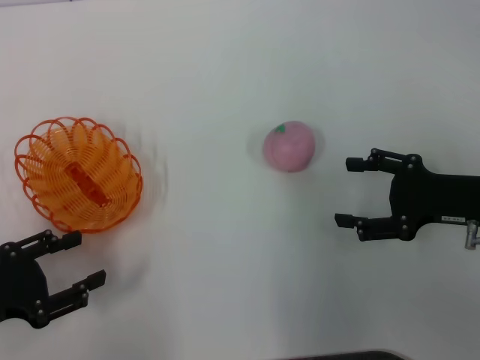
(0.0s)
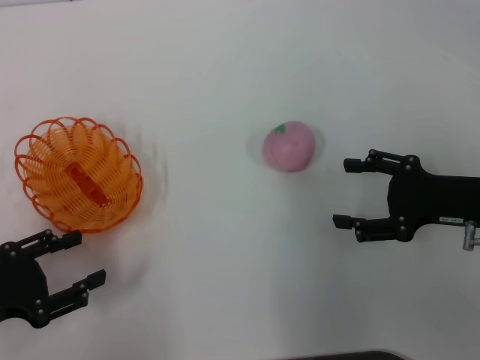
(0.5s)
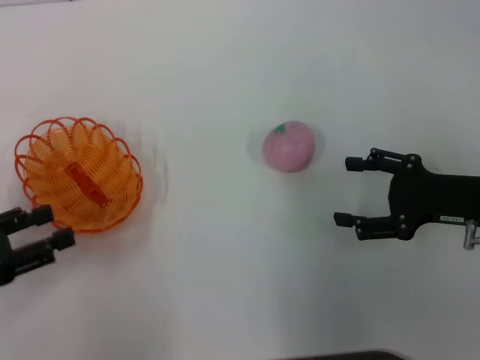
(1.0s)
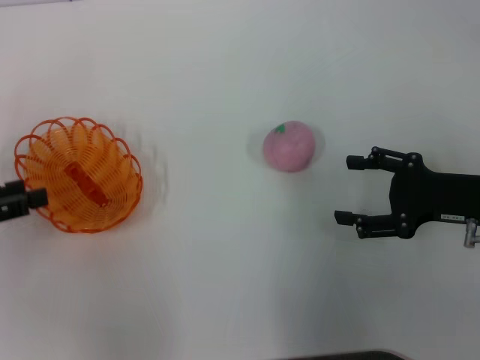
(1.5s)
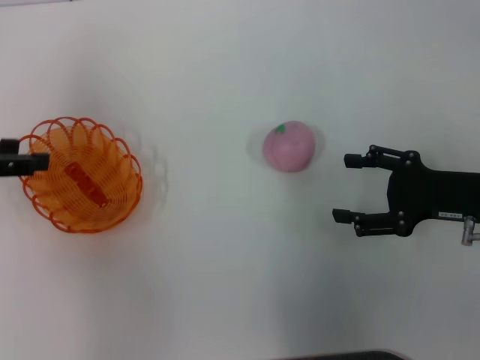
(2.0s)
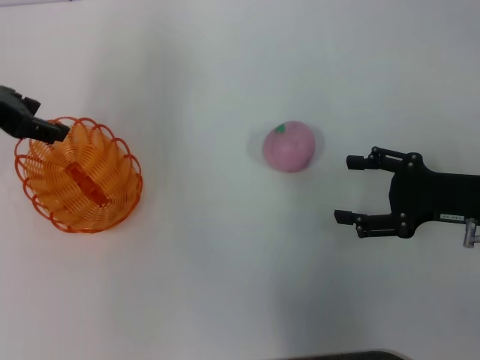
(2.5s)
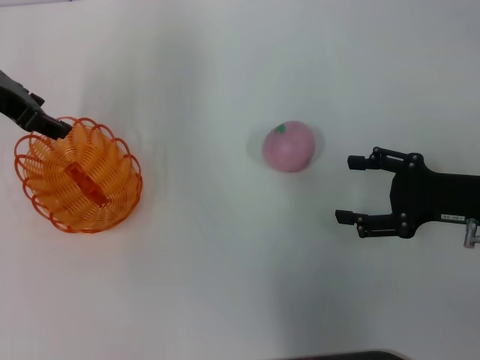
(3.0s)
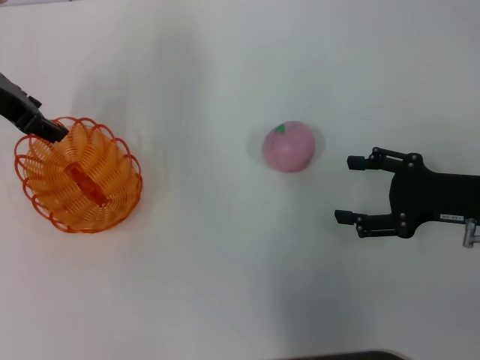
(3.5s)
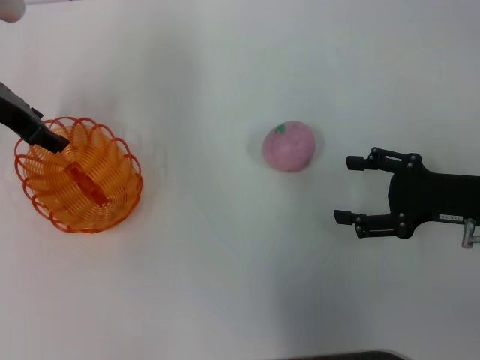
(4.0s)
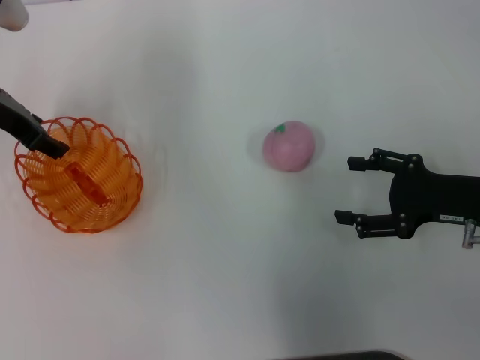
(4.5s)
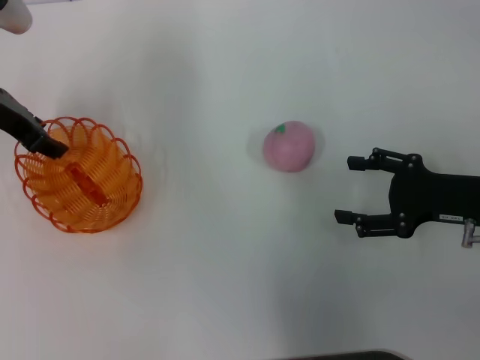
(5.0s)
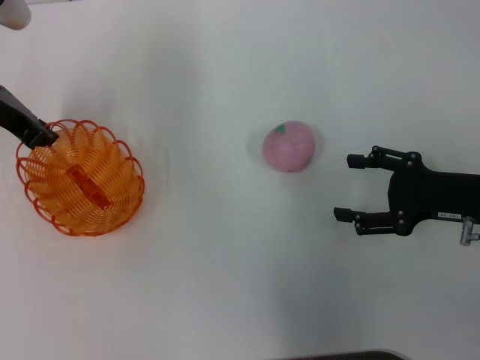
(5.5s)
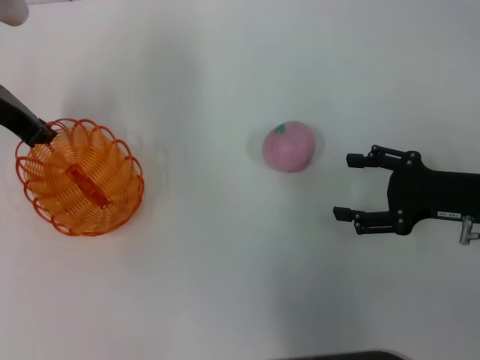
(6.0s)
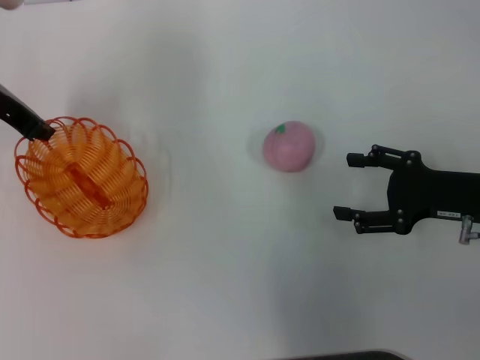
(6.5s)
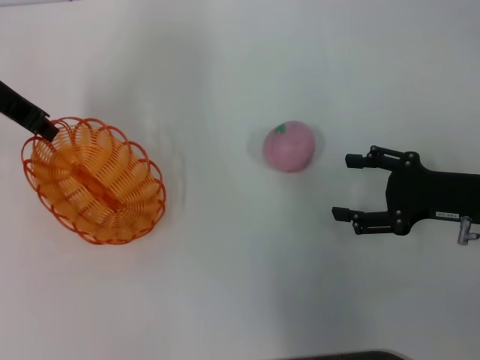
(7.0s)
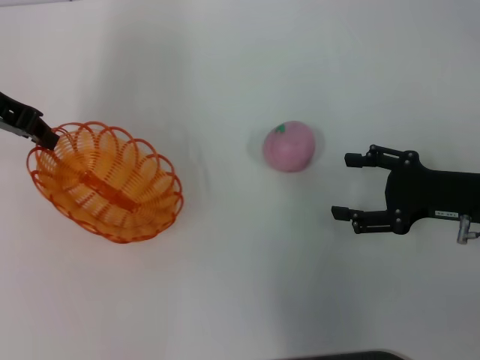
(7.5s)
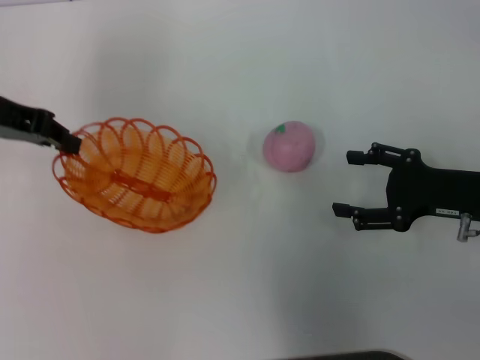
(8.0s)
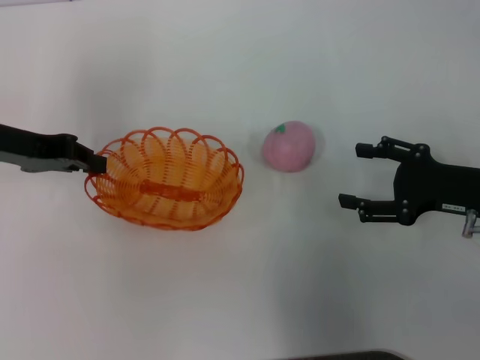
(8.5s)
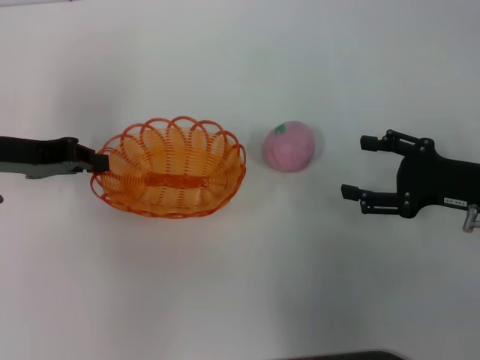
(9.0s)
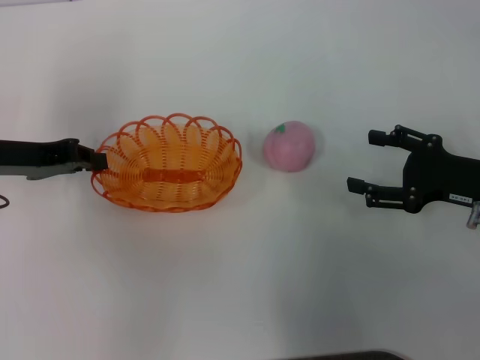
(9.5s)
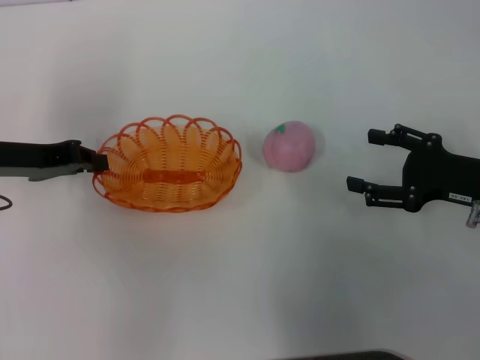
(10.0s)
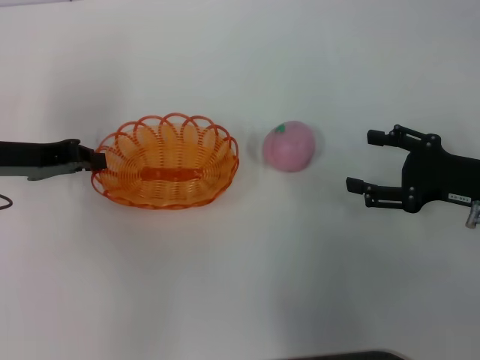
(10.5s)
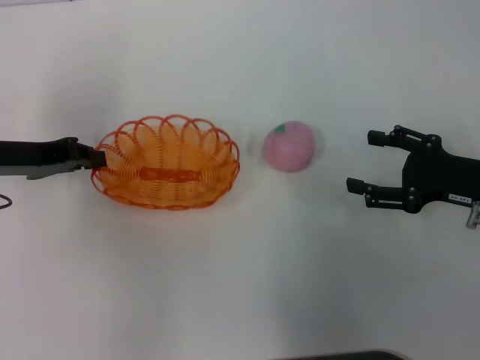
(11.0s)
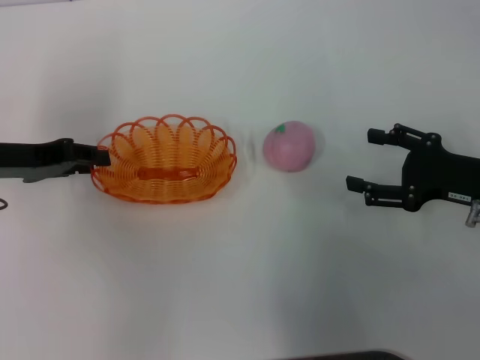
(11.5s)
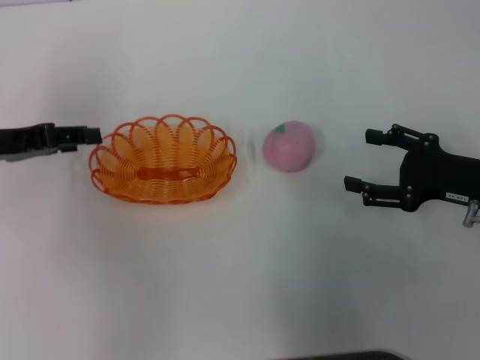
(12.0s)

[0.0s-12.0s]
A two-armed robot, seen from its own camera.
Step, 0.0s to 6.5s: Pick up the basket with the left gripper.
Step, 7.0s to 12.0s: Place the basket in the center of view with the left gripper.
0.0s to 2.0s: The left gripper heads forward and upward, covering roughly 15 cm.
2.0s to 4.0s: The left gripper shifts some 15 cm forward and to the right.
4.0s to 6.0s: The left gripper closes.
8.0s to 10.0s: The left gripper moves downward and backward, some 10 cm.
10.0s to 12.0s: The left gripper opens up.

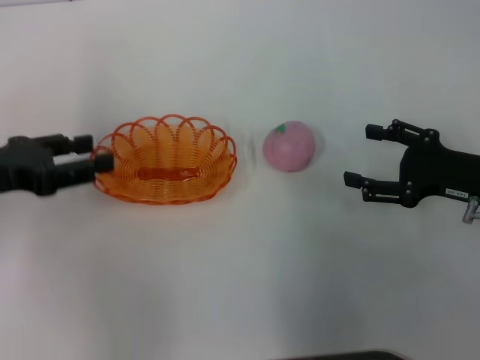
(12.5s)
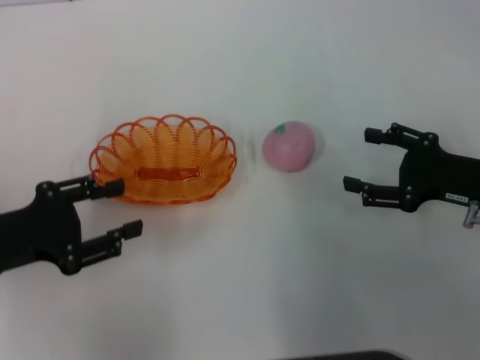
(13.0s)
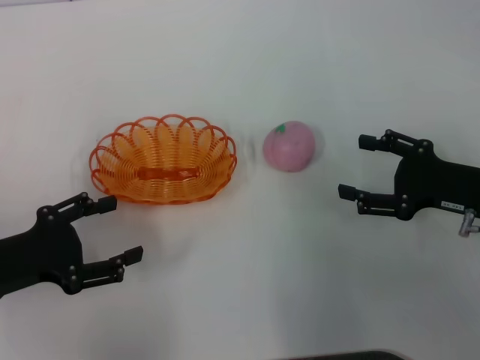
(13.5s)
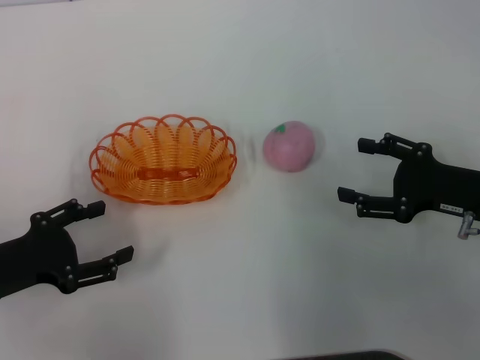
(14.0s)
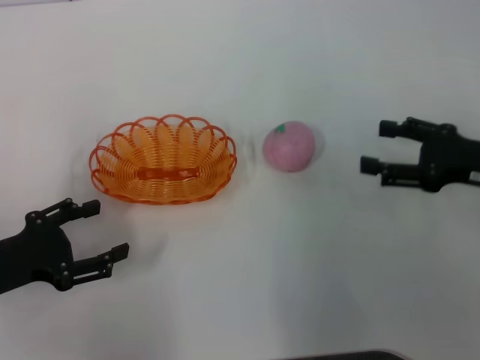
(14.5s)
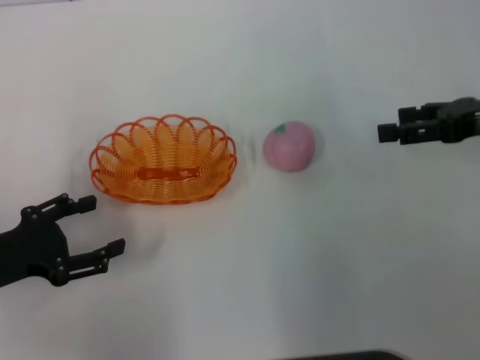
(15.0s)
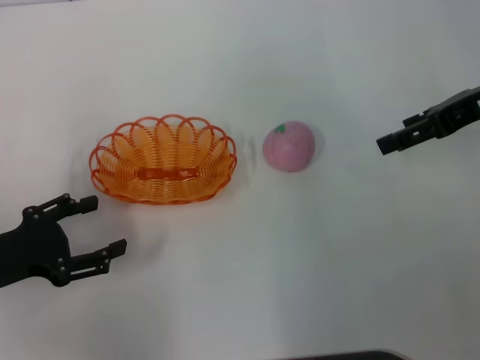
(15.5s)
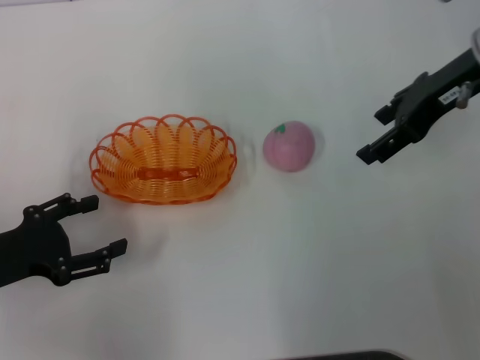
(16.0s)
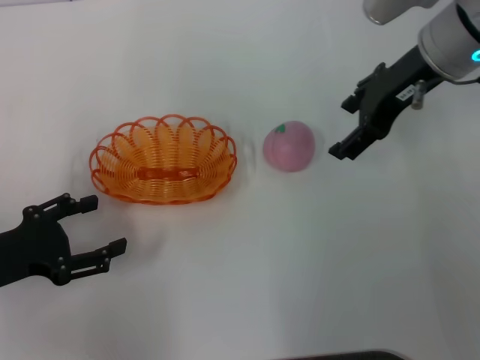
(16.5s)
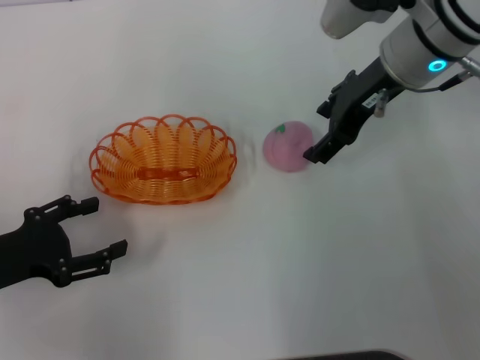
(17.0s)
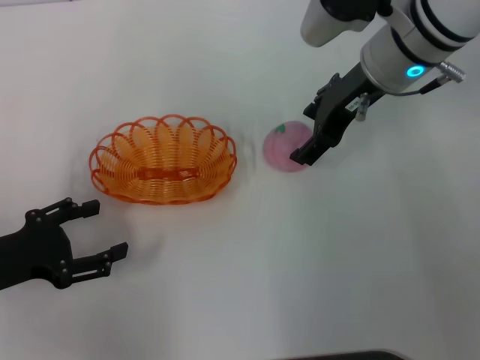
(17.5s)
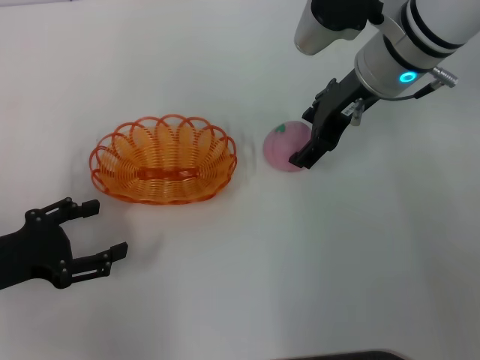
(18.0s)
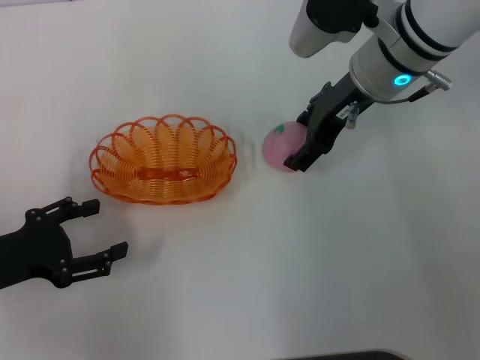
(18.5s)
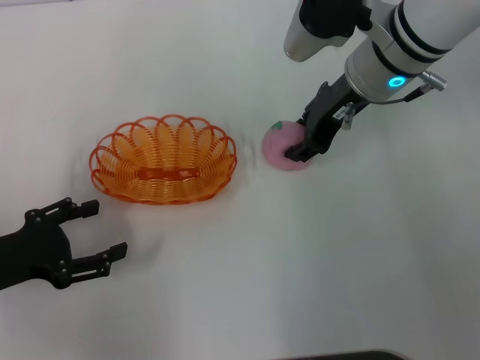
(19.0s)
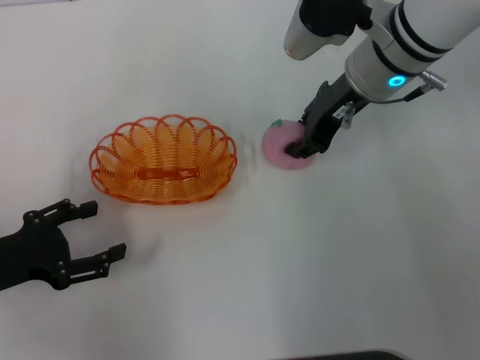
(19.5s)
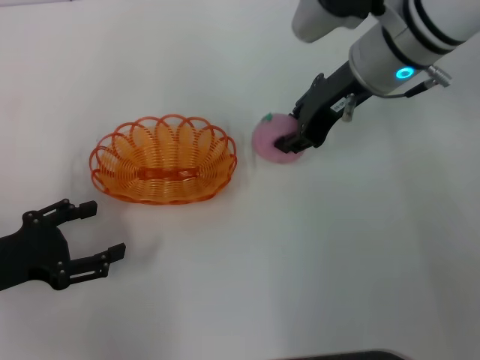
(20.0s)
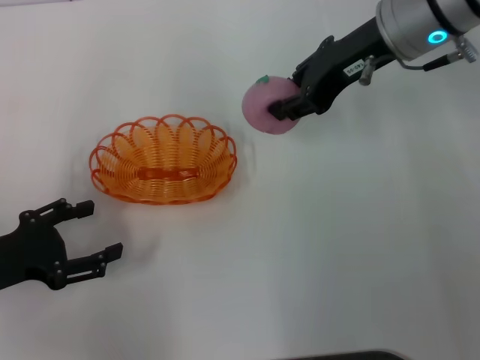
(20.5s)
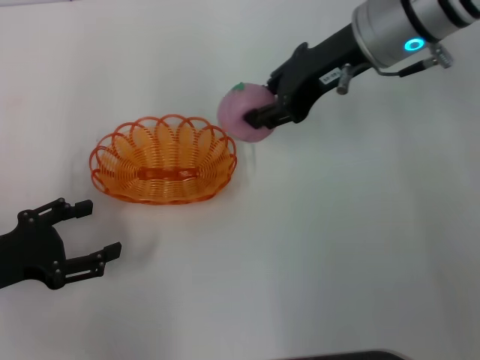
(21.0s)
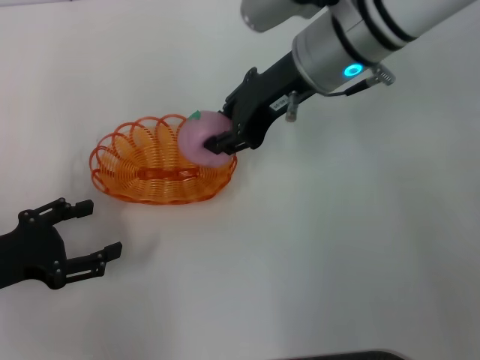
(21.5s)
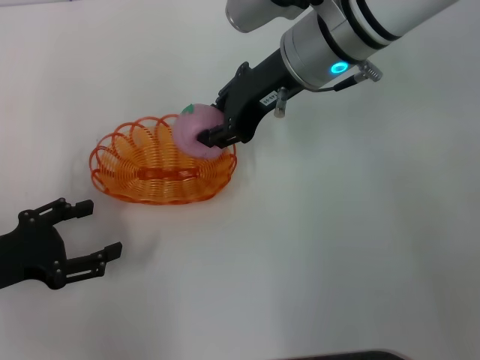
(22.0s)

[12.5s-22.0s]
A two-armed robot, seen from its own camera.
Step, 12.5s to 20.0s: Pick up the peach with the right gripper.
12.5s to 14.5s: The left gripper shifts roughly 10 cm downward and backward.
14.5s to 16.5s: The right gripper goes approximately 20 cm to the left, forward and upward.
16.5s to 18.0s: The right gripper changes place by approximately 5 cm.
18.0s to 20.0s: The right gripper closes.
20.0s to 22.0s: The right gripper moves to the left, about 5 cm.

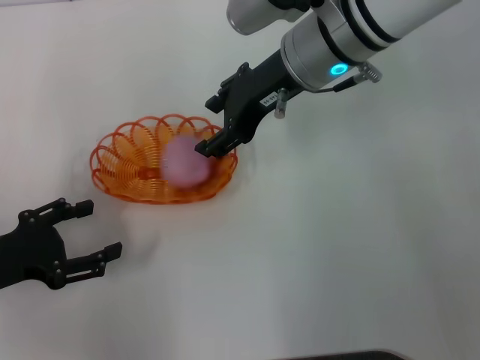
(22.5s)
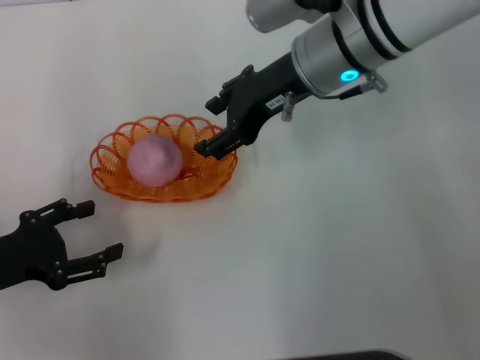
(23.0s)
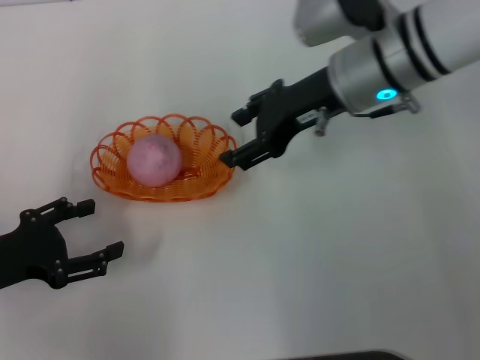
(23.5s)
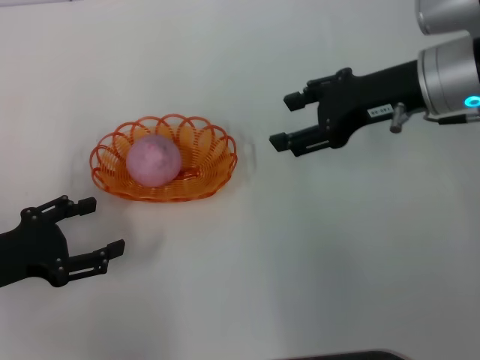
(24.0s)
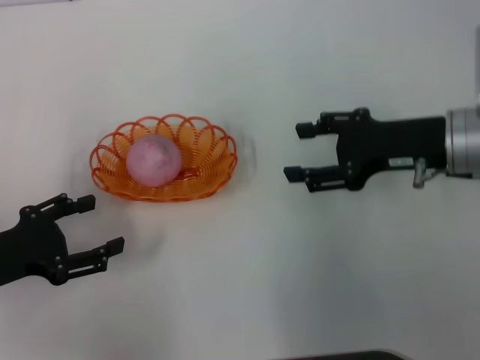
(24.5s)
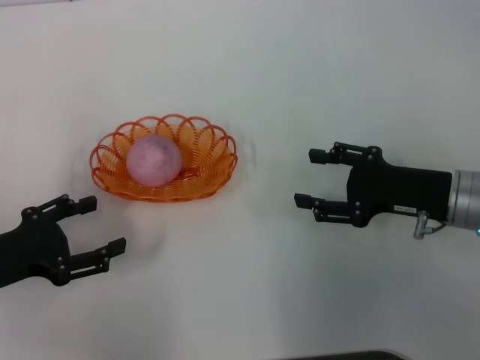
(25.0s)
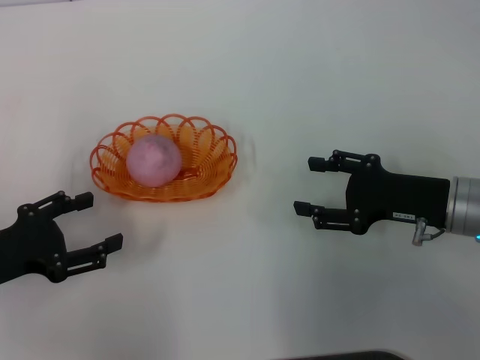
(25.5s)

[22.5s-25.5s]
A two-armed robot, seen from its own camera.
22.5s to 24.0s: The right gripper goes some 10 cm to the right.
24.0s to 25.5s: The right gripper heads downward and backward, covering about 15 cm.
